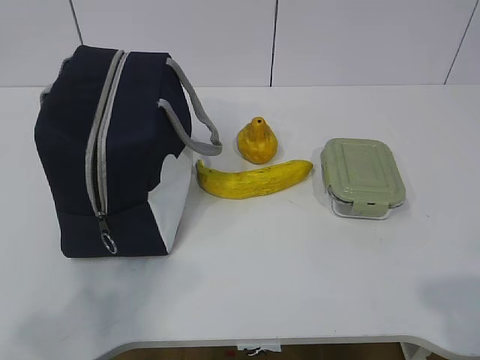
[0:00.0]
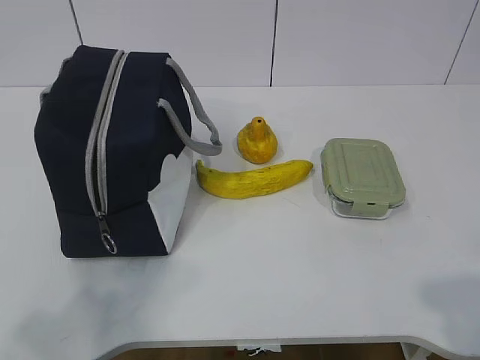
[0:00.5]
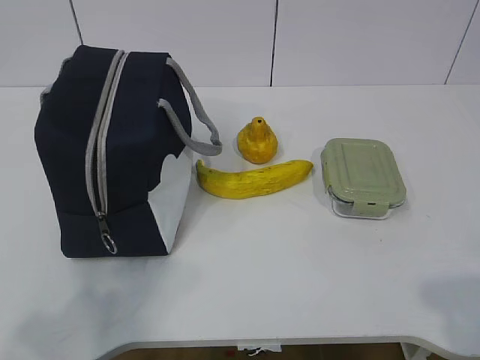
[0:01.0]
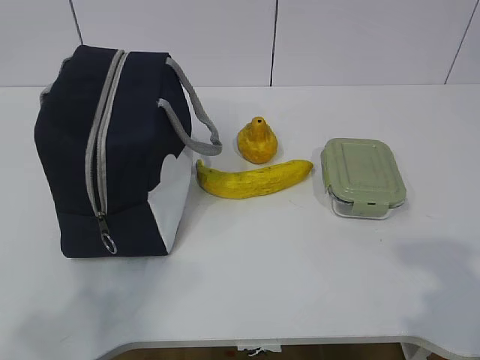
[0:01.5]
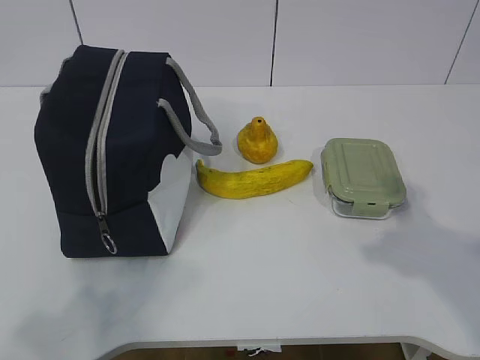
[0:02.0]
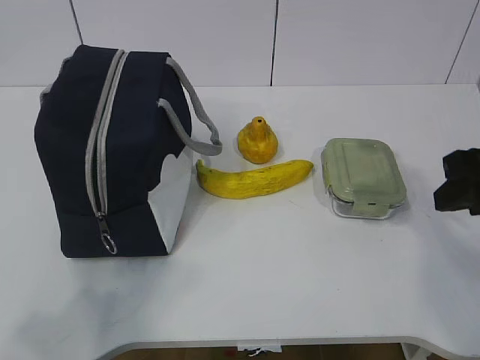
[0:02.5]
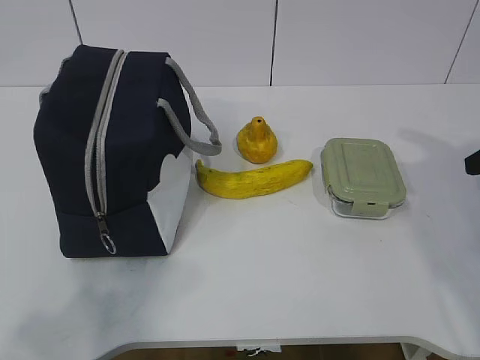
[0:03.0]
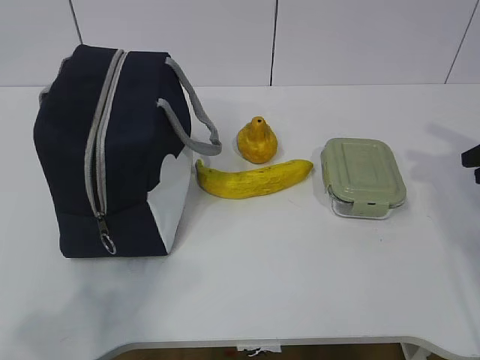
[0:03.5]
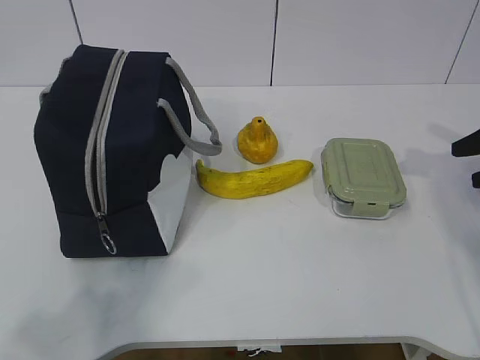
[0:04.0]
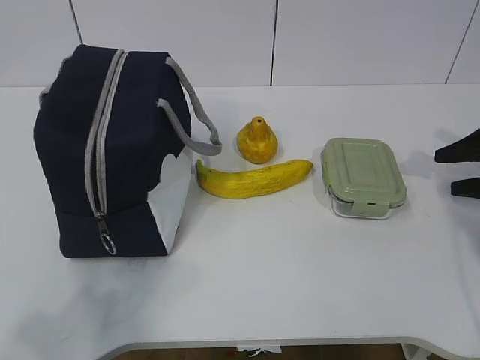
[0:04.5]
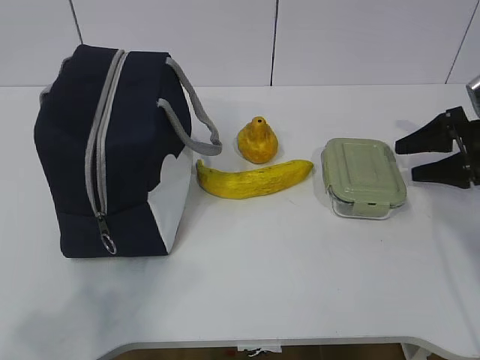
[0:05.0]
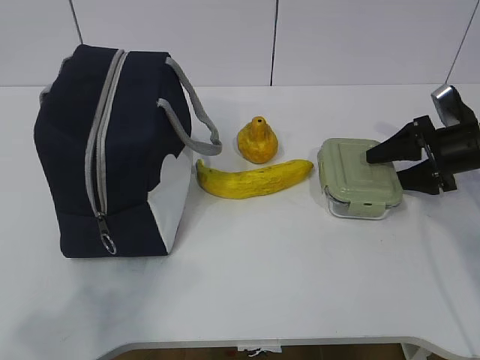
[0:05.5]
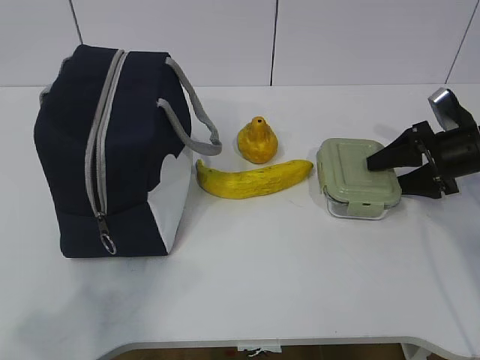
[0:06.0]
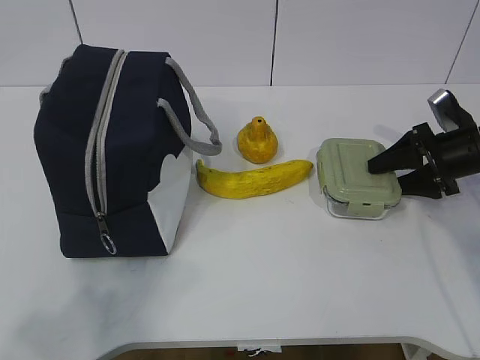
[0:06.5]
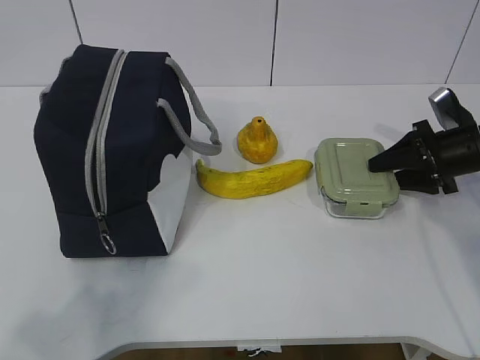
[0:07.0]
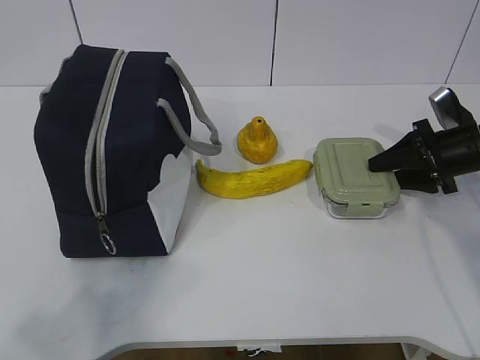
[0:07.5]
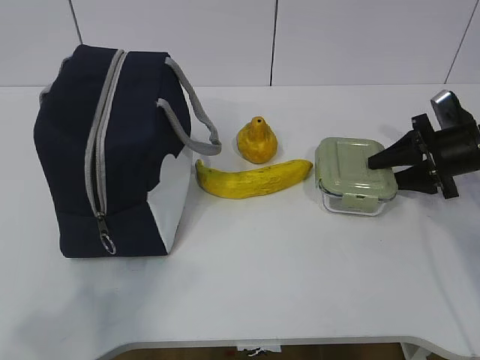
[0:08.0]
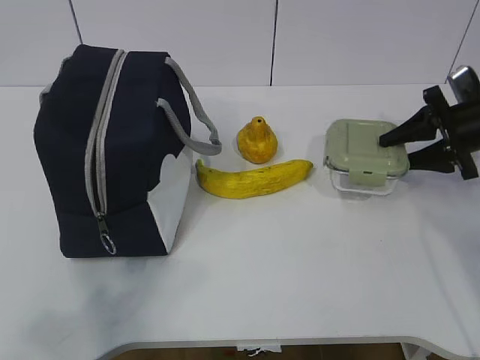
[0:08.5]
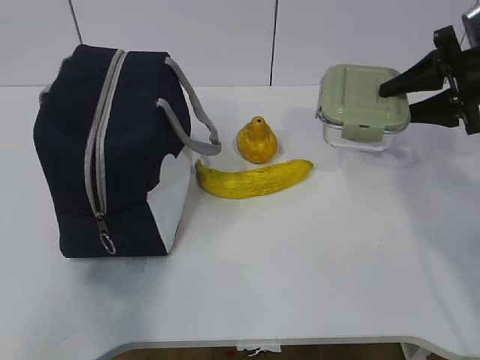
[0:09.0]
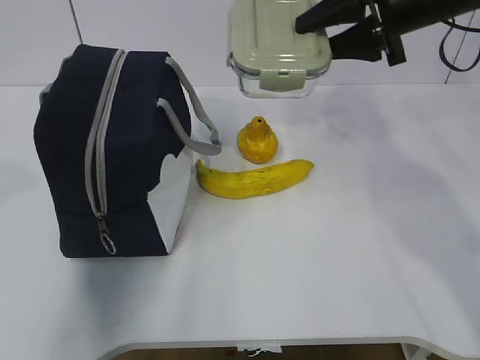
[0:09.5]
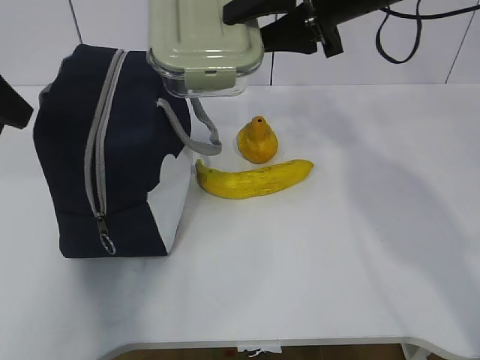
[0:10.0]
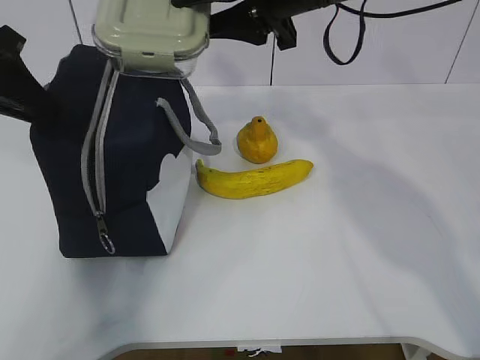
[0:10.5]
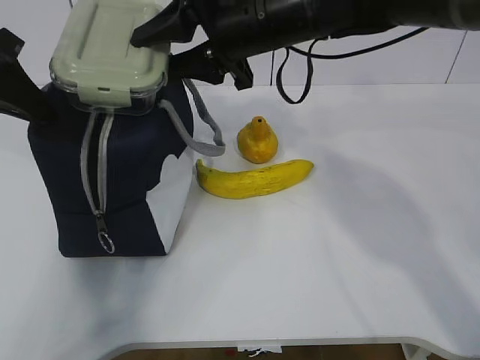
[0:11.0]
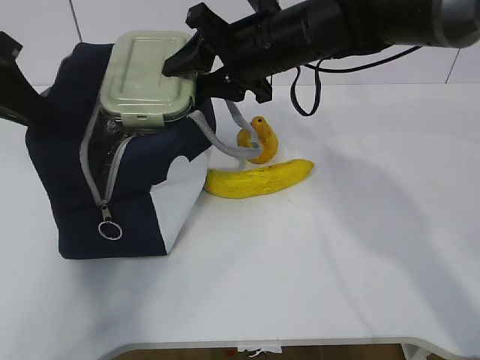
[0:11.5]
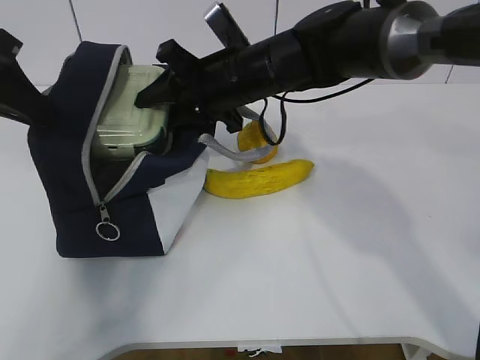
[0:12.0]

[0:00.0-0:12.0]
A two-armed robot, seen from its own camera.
Step, 0:00.0 to 0:06.0: Grab the lunch box with your right hand.
Step, 0:06.5 to 0:09.0: Grab the lunch bag with your left hand.
Step, 0:09.5 to 0:11.0: Place it into the bag with your right hand.
0:02.0 to 0:04.0: The right gripper travels forward, to the right and downward by about 25 cm, and opens its fingers.
0:04.0 to 0:06.0: The right gripper shifts some 10 cm to the left, forward and downward.
0:06.0 to 0:08.0: The right gripper closes.
0:08.0 to 0:10.0: The left gripper goes approximately 30 cm forward; the right gripper is displaced upward and to the left by about 30 cm.
0:10.0 to 0:12.0: The right gripper travels to the left and downward by about 15 cm. Meanwhile the left gripper closes its fingers.

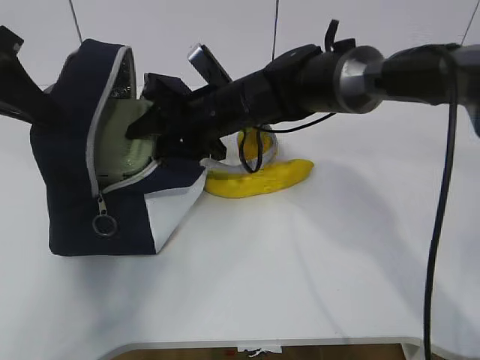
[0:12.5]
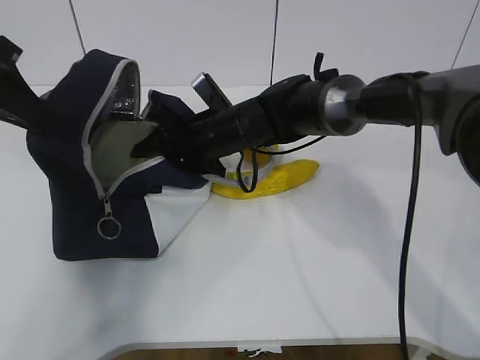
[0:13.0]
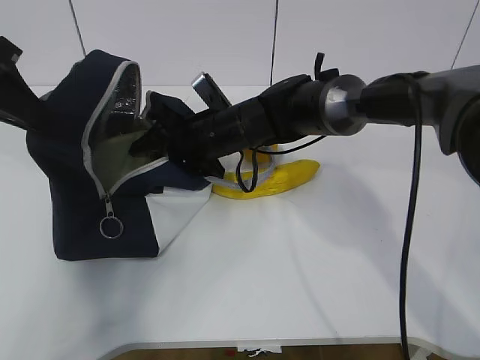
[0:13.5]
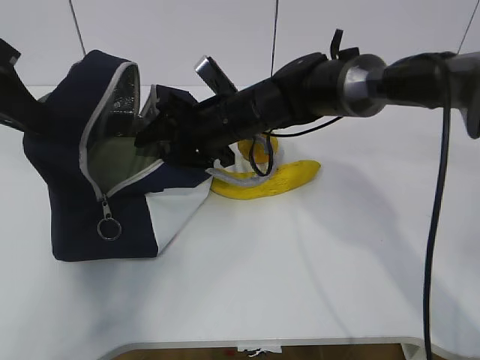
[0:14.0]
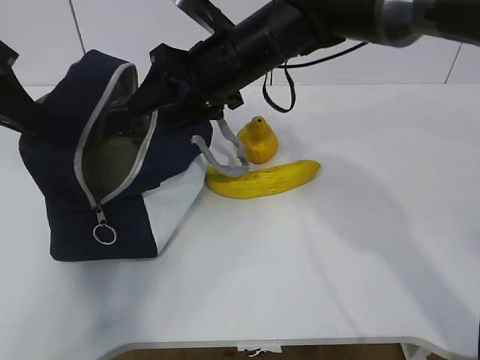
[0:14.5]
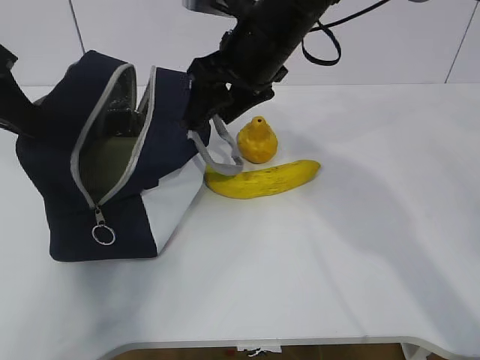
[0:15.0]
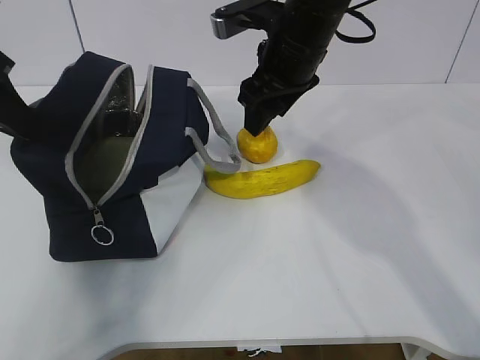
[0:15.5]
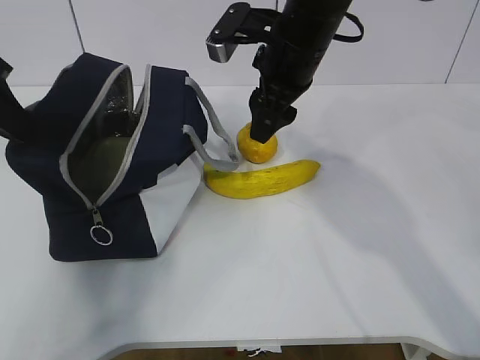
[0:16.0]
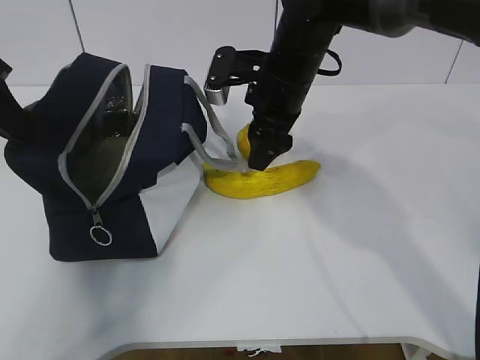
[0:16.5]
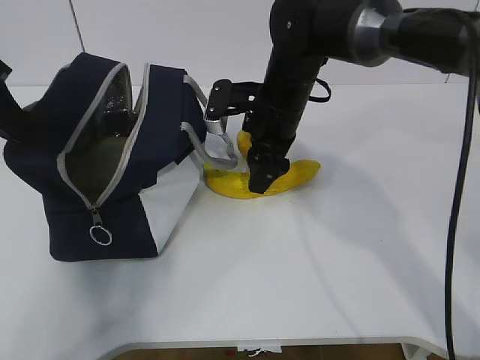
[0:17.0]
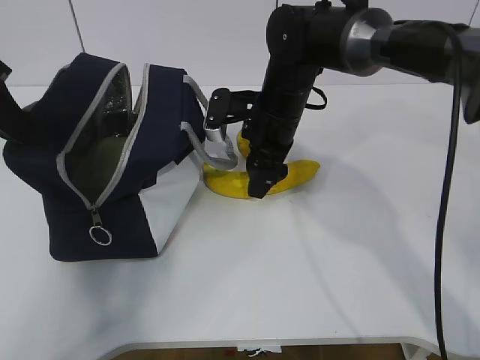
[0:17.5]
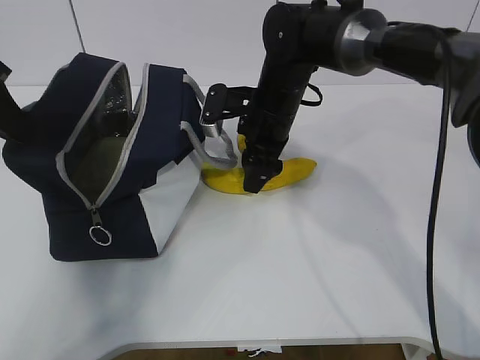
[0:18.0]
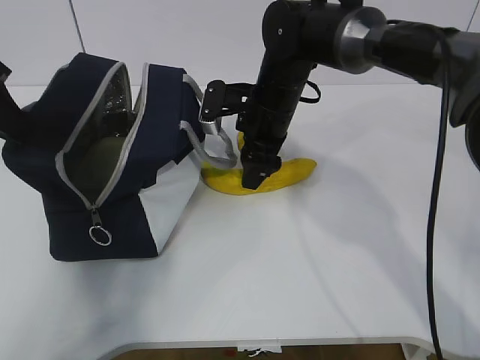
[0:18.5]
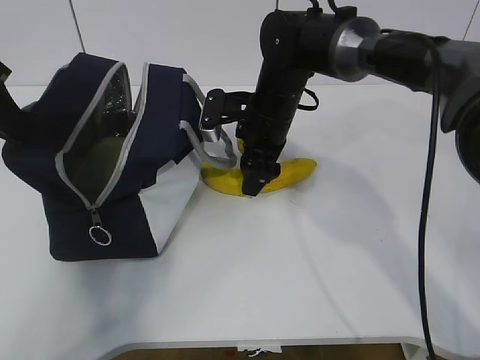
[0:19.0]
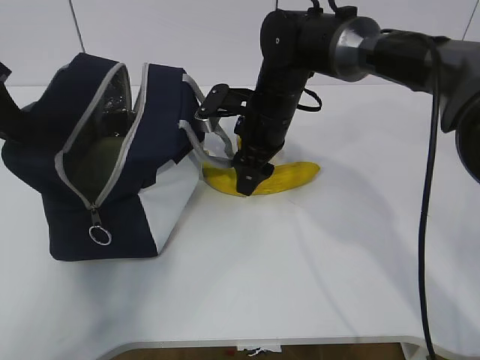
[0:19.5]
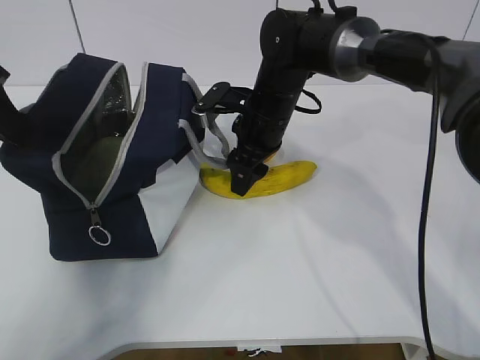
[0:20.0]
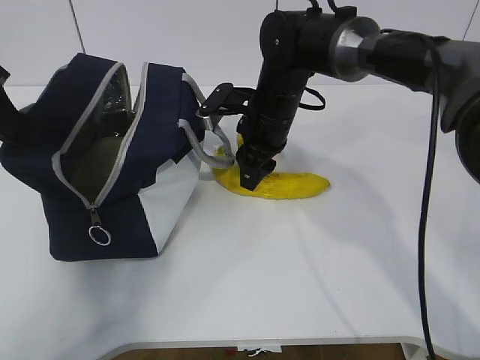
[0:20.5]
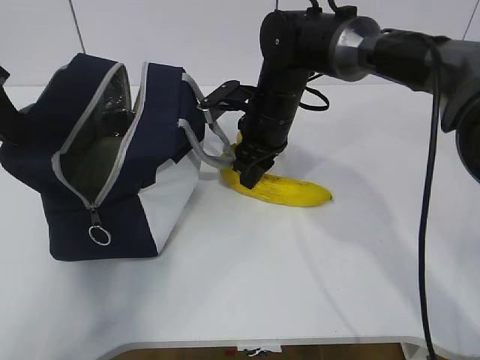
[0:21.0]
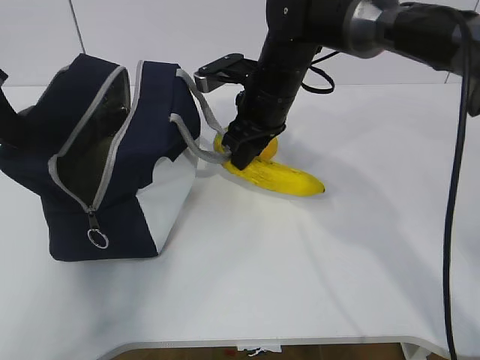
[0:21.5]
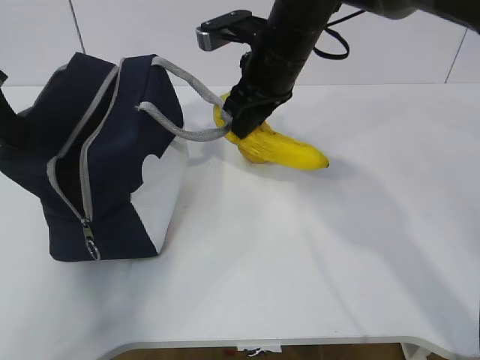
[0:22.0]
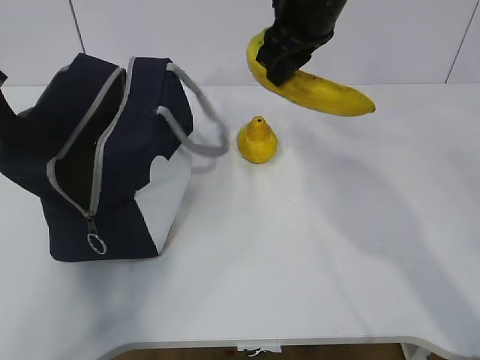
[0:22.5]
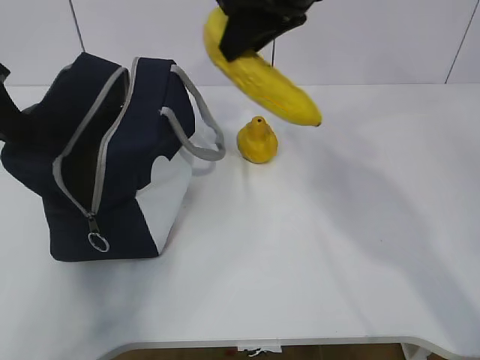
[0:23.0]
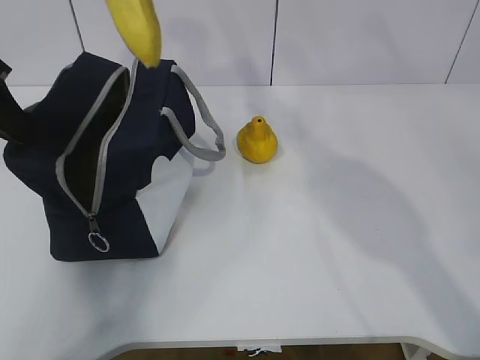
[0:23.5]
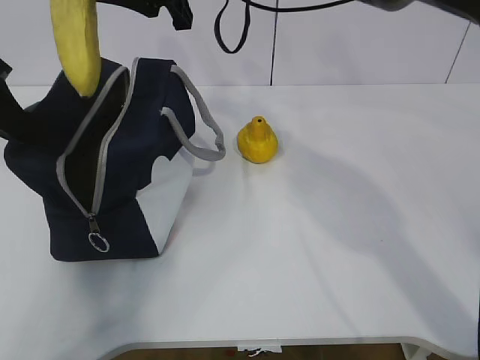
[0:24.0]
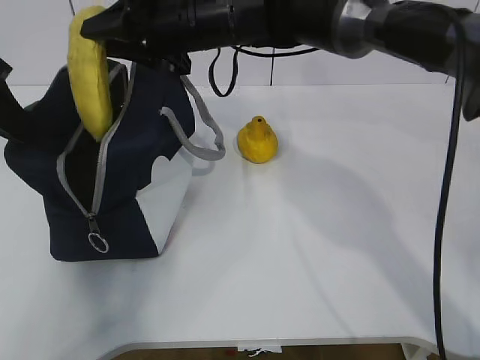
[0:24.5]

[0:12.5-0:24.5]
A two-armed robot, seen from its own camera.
Step, 0:12.5 to 0:17.0: Grab the banana with your right hand.
Step, 0:18.0 to 0:21.0: Place it into the bag with your right hand.
Step, 0:21.5 to 0:23.5: Grab the pear with your right hand.
0:12.5 to 0:14.5: The right gripper shifts roughly 10 cm upward.
0:14.5 to 0:16.5: The right gripper changes place by approximately 5 cm.
0:16.5 to 0:18.5: The right gripper heads downward, covering about 5 cm.
0:18.5 to 0:20.5: There are only small adjustments of the grippers.
0:20.5 to 0:22.5: The right gripper heads upward, covering roughly 15 cm.
0:22.5 to 0:24.5: The right gripper goes about 10 cm to the left.

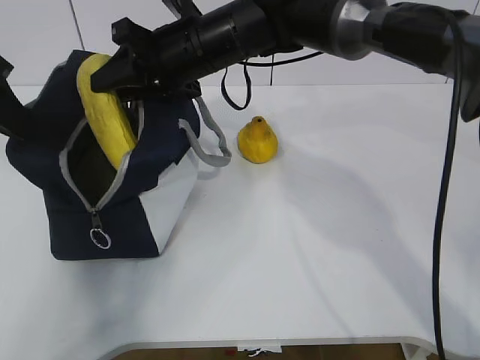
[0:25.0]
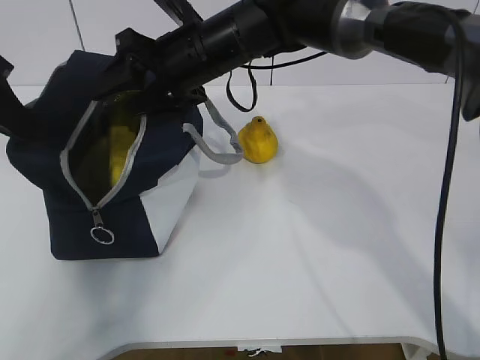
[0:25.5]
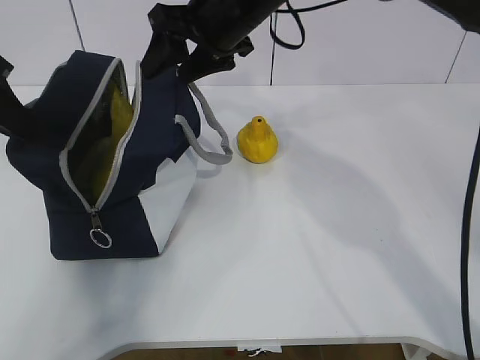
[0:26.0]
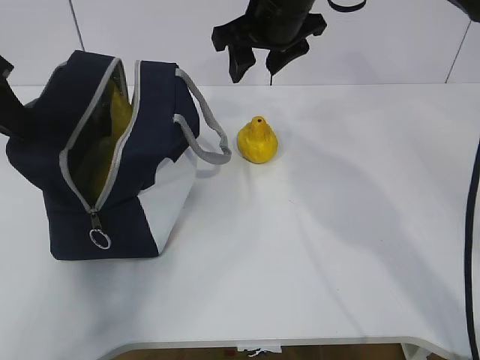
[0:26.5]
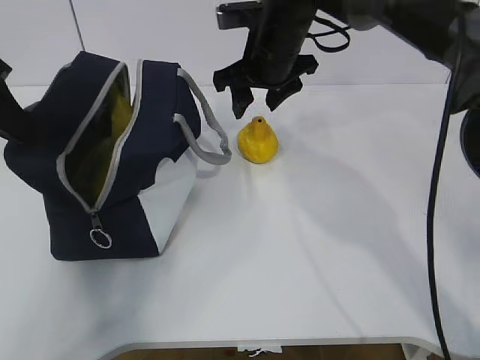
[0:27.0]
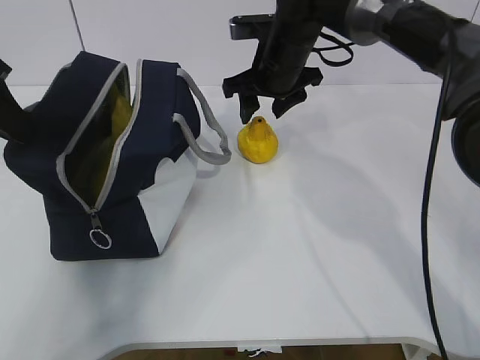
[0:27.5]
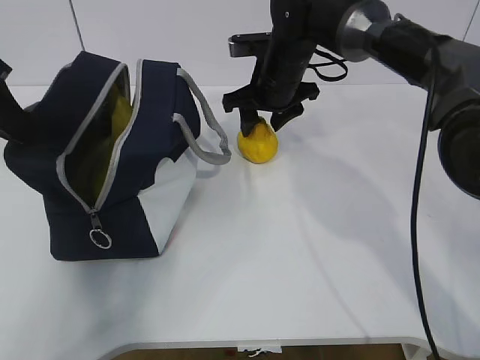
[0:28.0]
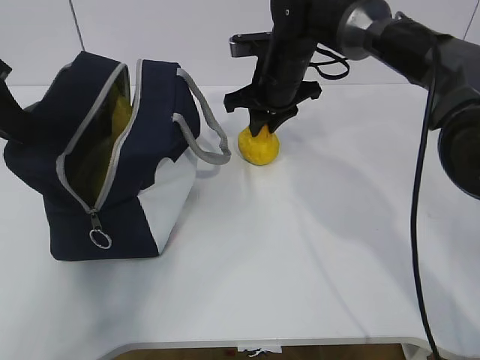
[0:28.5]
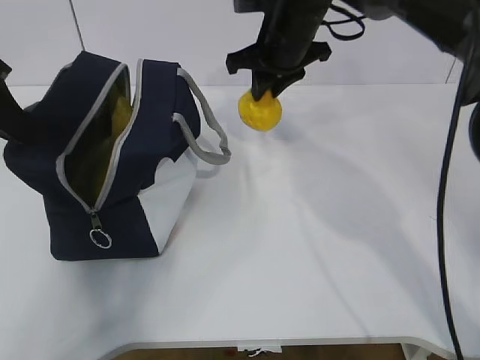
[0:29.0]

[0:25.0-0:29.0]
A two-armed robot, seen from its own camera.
0:25.0 to 0:27.0: The right gripper shifts some 10 cm to the right, and opens up.
0:27.0 to 0:29.0: The right gripper closes up.
